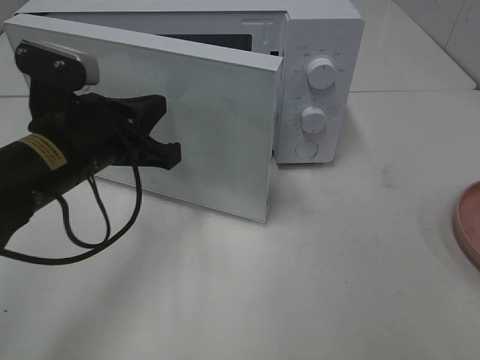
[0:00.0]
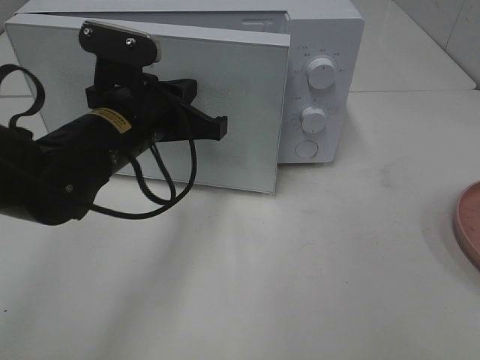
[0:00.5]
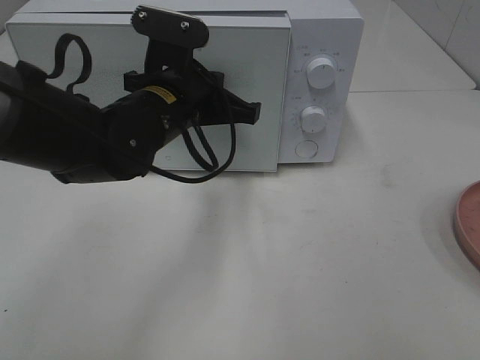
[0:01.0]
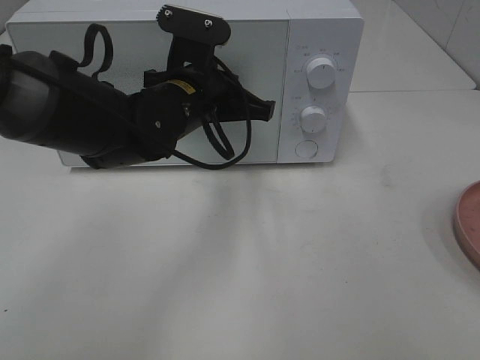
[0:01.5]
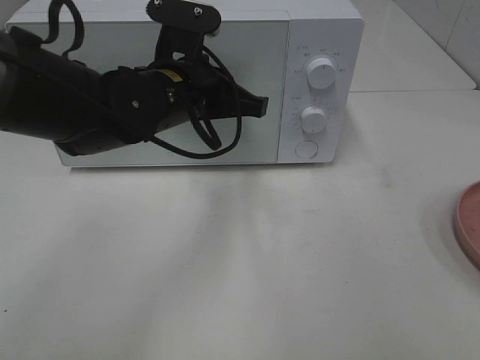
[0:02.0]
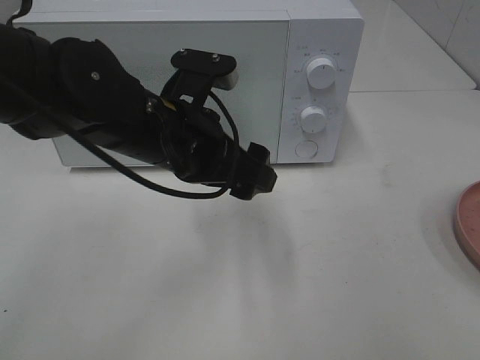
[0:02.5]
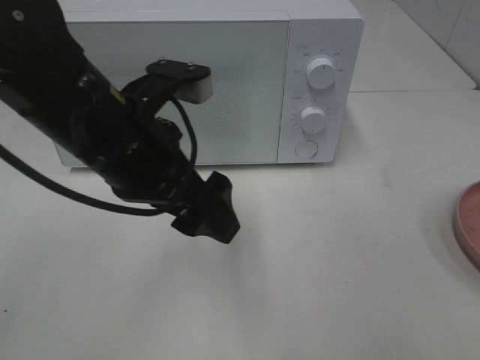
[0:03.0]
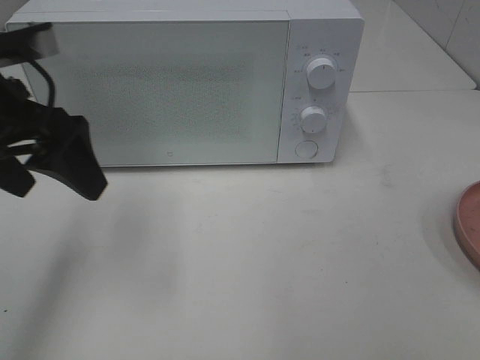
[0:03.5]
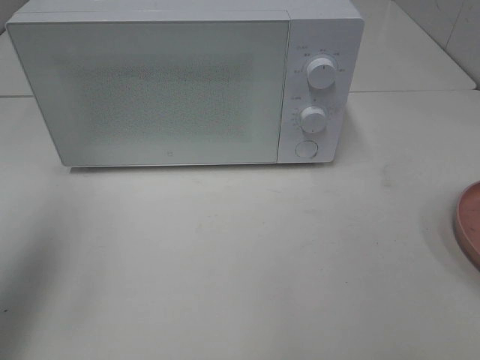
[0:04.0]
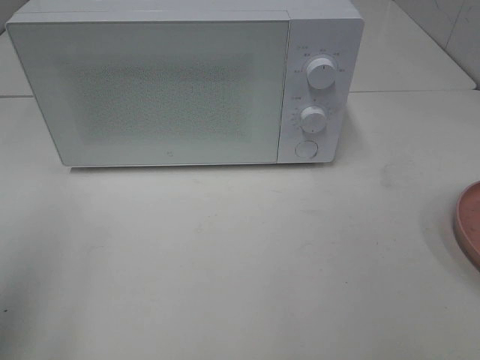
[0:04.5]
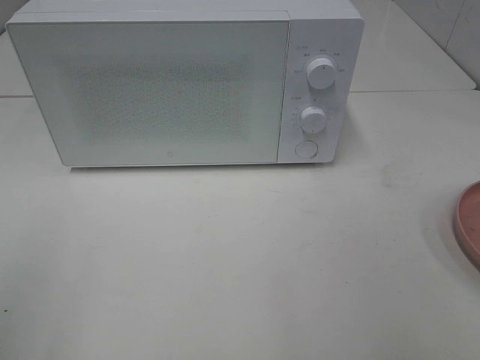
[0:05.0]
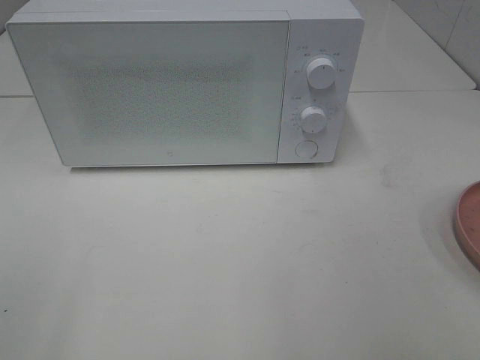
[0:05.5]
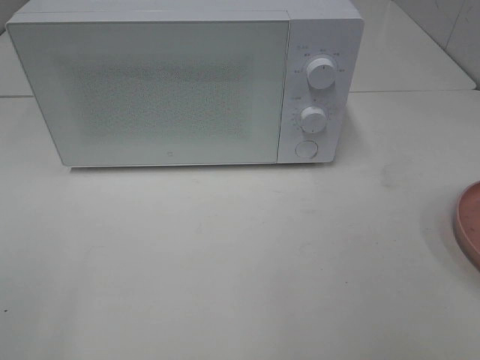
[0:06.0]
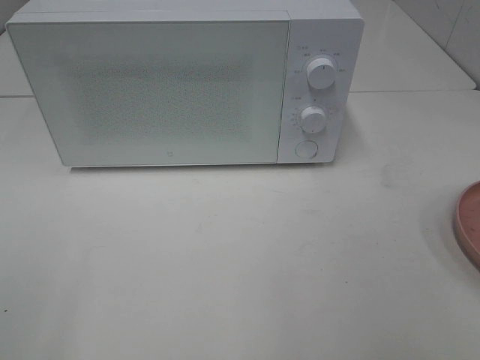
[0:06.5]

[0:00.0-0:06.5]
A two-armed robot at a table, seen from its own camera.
Task of the whole recording: Heat the burger.
Step, 0.0 to 2.0 s: Left hand: close the microwave door.
0.0 to 2.0 s: The left gripper is displaced to the right and forward by roughly 10 cm.
2.0 to 4.5 s: The left gripper is displaced to the left and backward by approximately 30 cm, and opens.
4.5 to 6.5 s: The left gripper is displaced backward by approximately 10 cm.

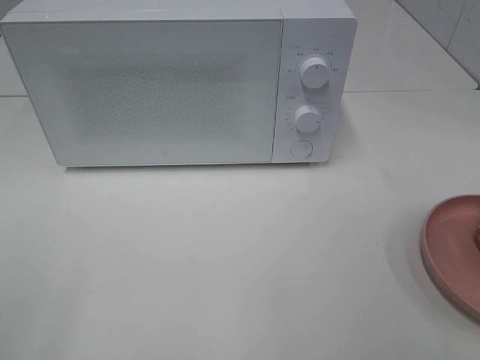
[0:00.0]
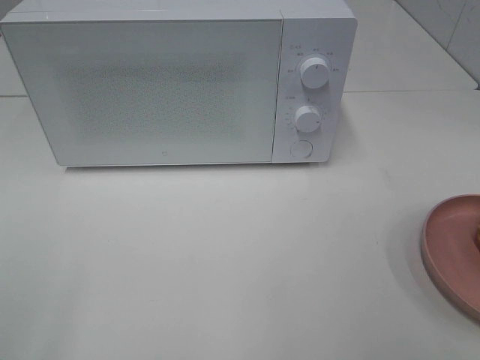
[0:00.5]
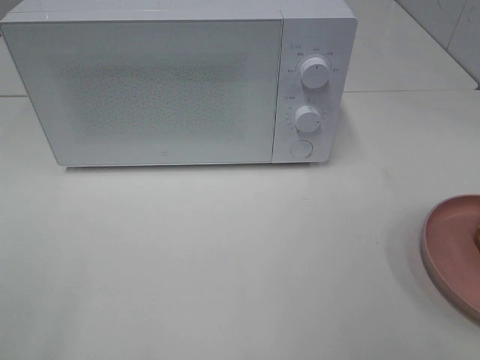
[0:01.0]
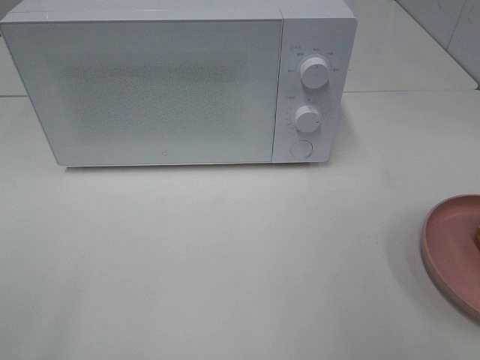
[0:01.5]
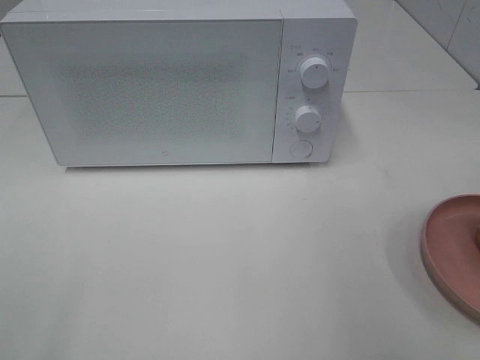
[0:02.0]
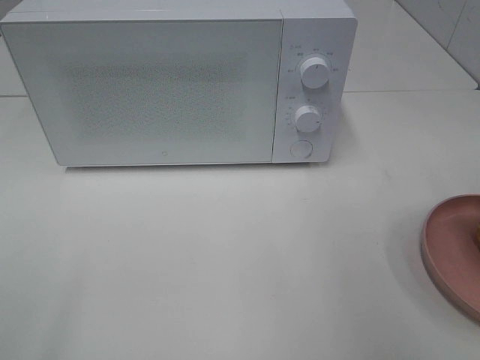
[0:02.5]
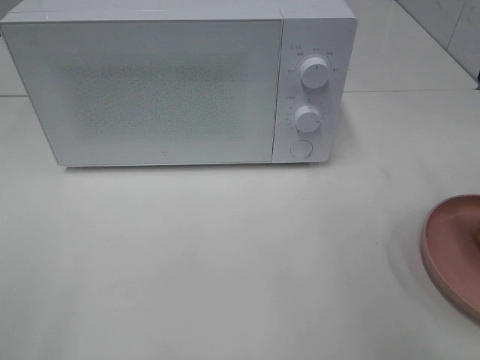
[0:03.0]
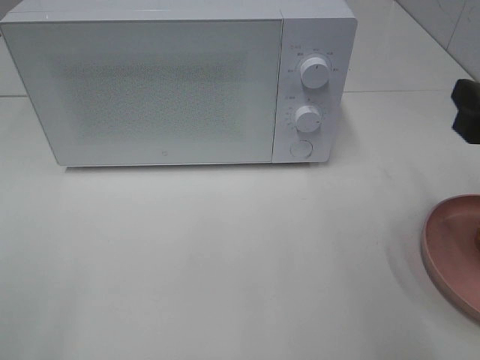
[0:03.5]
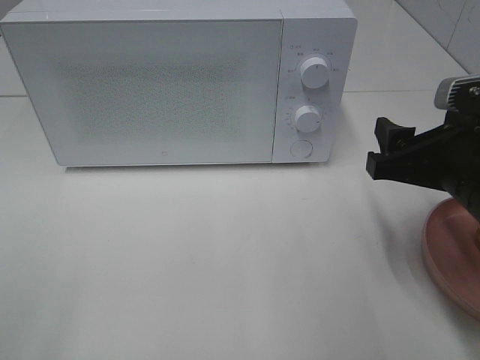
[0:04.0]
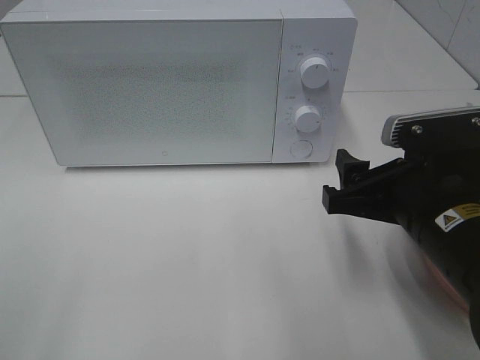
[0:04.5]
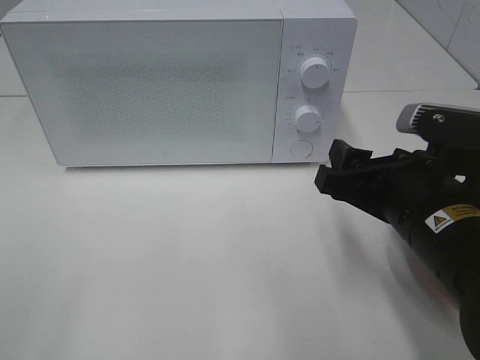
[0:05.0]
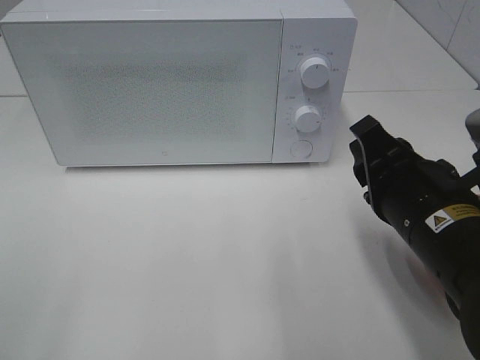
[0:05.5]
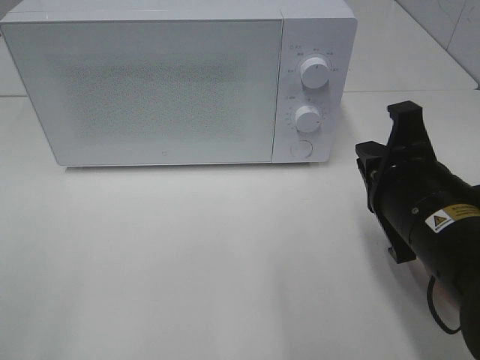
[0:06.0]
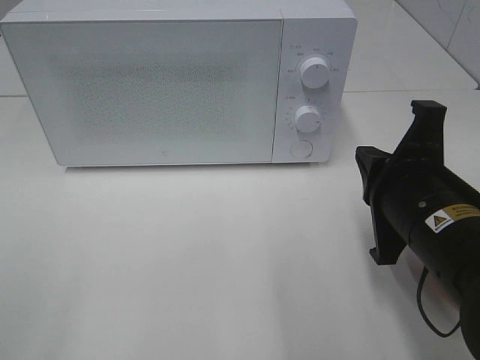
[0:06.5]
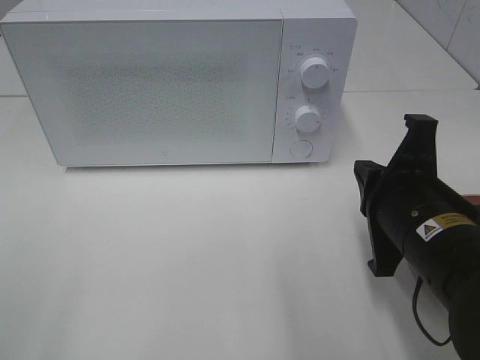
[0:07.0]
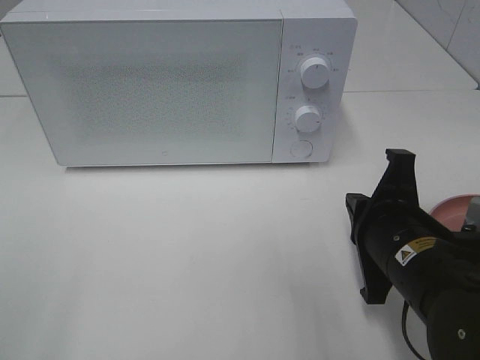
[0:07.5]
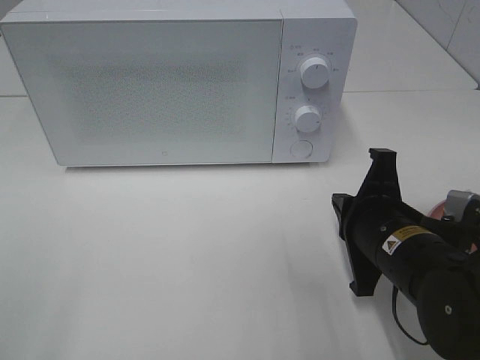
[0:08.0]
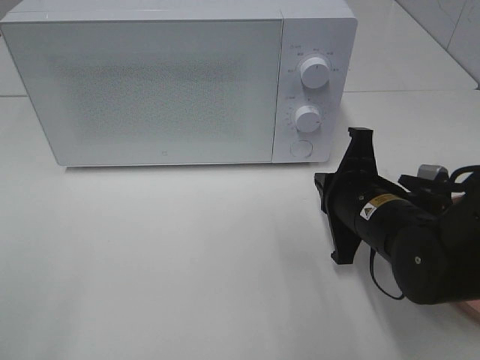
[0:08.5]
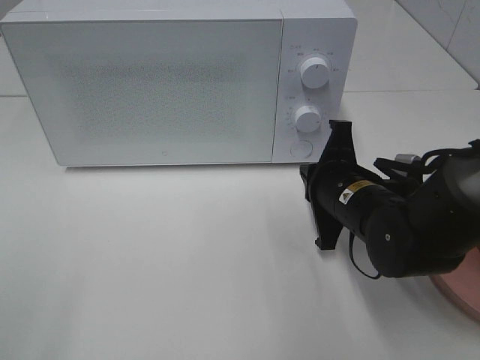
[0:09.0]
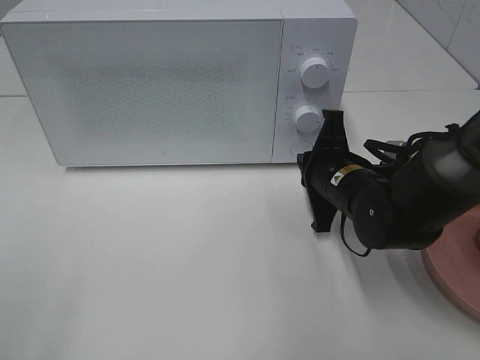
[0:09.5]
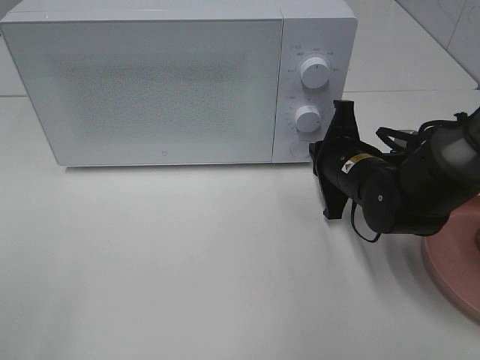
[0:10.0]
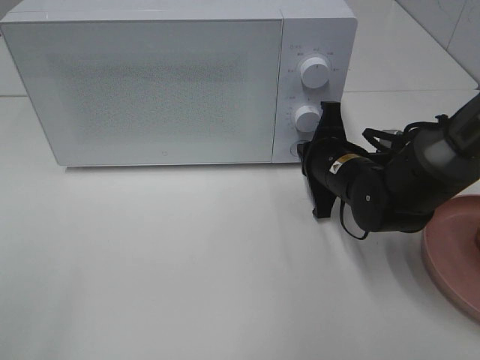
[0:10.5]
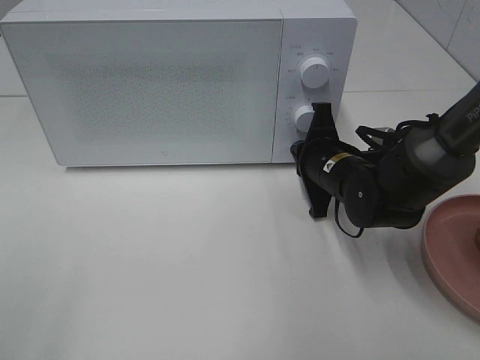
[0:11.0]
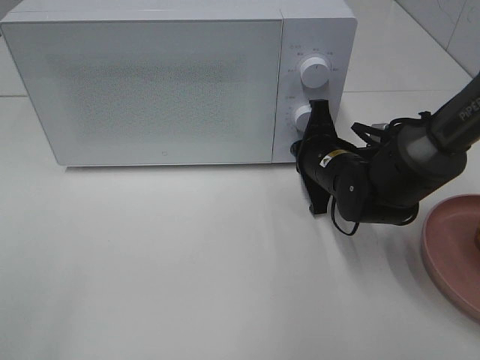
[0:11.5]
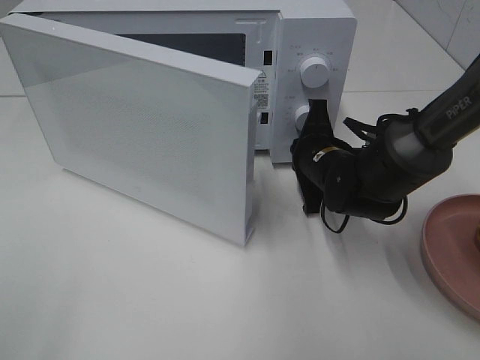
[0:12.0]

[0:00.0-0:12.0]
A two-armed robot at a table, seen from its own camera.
Task of the whole recording: Heat the burger.
2.0 to 4.0 s: The right gripper travels downward, to the left and forward by about 15 cm.
4.0 to 6.0 s: The right gripper shifts by some 5 cm, and closes.
6.0 to 8.0 s: The right gripper travels downward by roughly 5 cm.
8.0 to 10.0 s: The right gripper heads forward, covering about 10 cm.

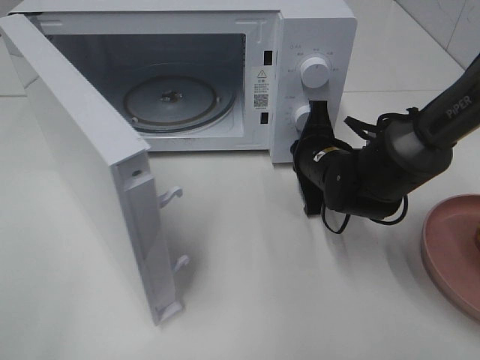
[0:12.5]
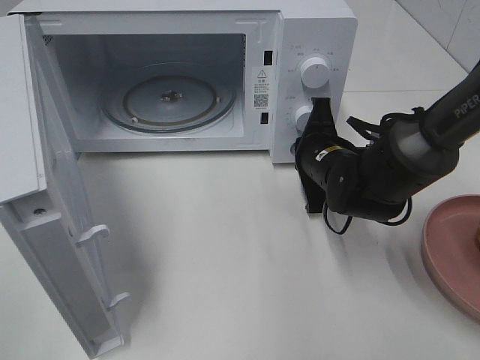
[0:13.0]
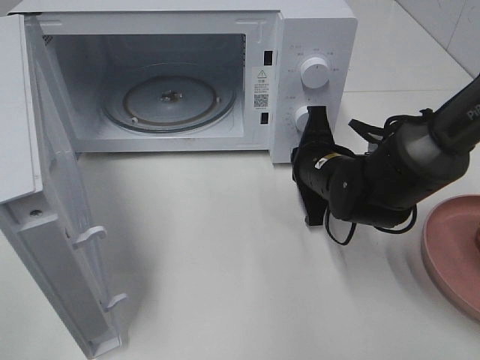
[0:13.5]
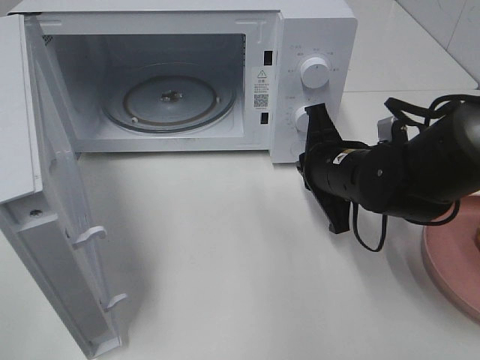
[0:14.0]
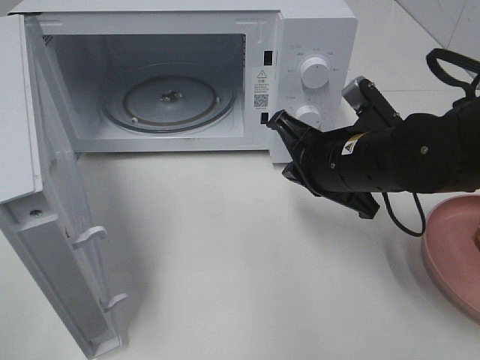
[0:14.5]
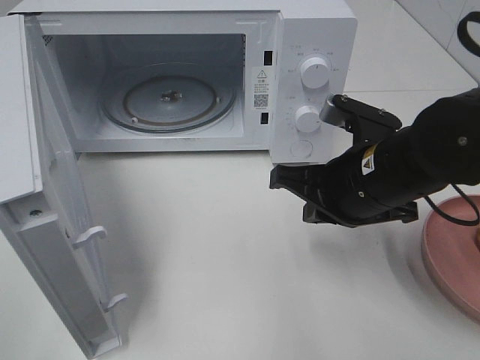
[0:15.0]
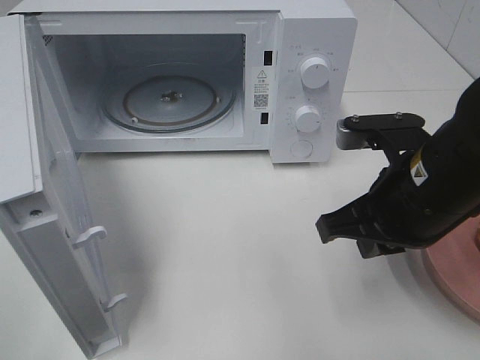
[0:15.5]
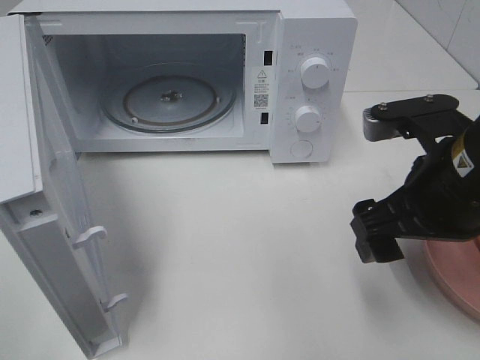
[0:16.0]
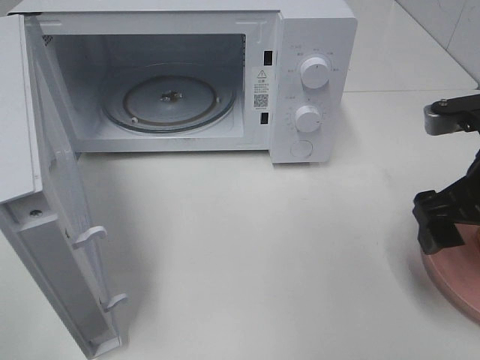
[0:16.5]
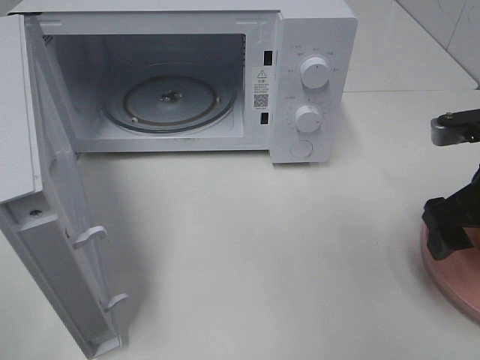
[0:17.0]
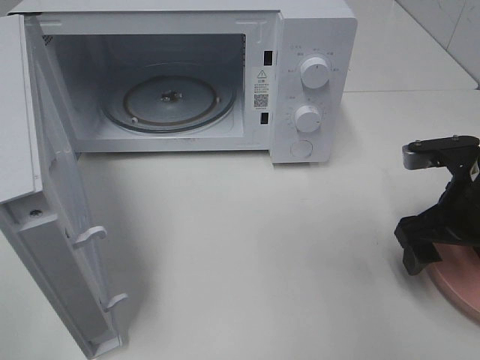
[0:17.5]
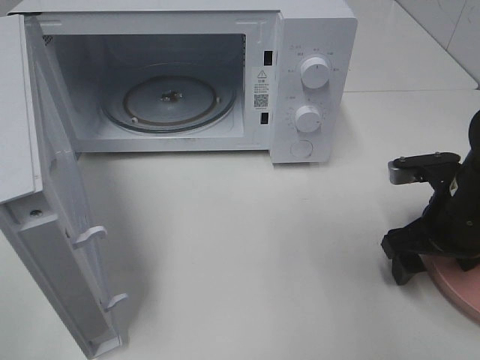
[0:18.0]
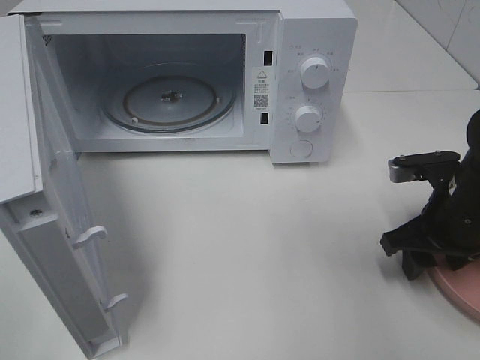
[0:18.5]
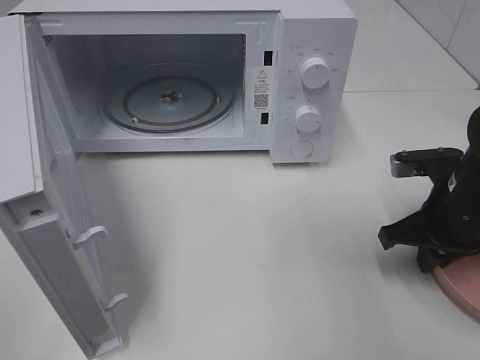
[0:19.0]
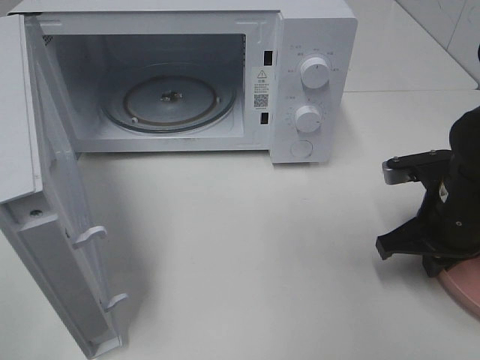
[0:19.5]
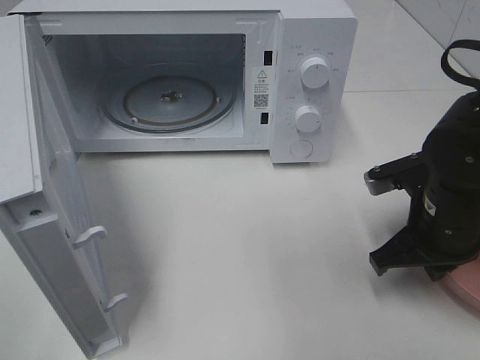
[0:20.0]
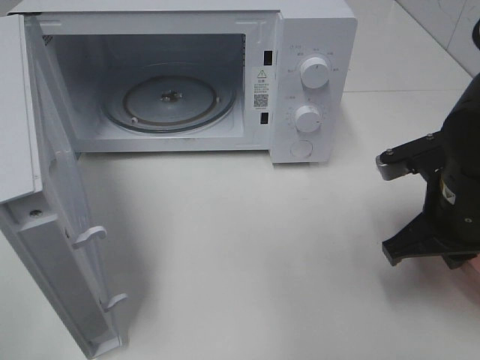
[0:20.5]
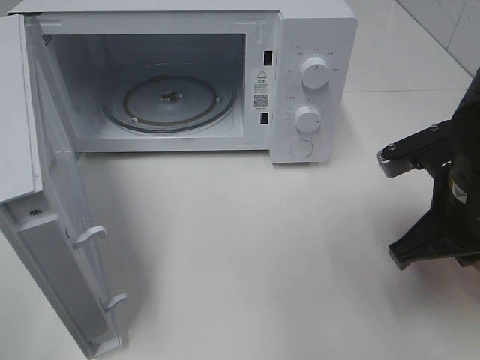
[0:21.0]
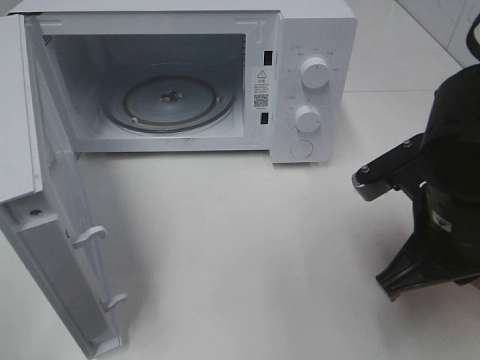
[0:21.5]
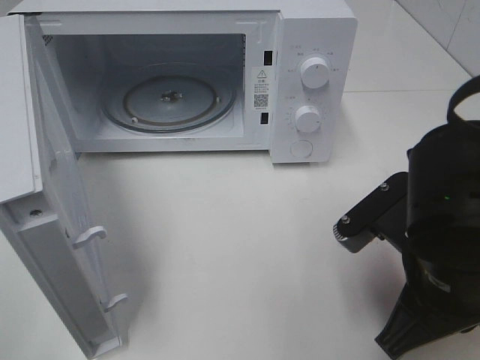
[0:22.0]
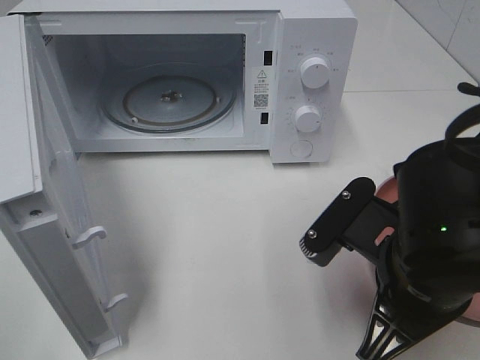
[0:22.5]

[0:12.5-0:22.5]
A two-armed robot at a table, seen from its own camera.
Task of the whole recording: Heat the burger.
Step, 14.0 to 19.5 s: Right hand: grab the plate with the hamburger.
12.5 to 14.5 s: The right gripper travels backward and upward by about 10 cm.
14.5 to 16.5 s: The right gripper goes roughly 15 cm to the right, backward and upward, and opens.
16.5 to 18.5 s: The right gripper goes some 10 cm downward, and closes its fingers.
18.5 to 20.5 s: The right gripper shifts by approximately 5 cm, and closes.
20.5 to 22.5 s: The right gripper is displaced backward and to the left by roughly 10 cm.
